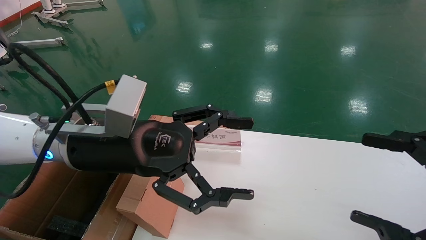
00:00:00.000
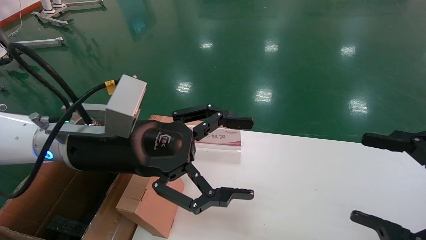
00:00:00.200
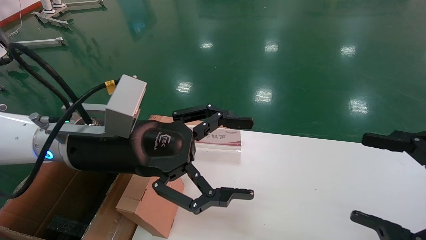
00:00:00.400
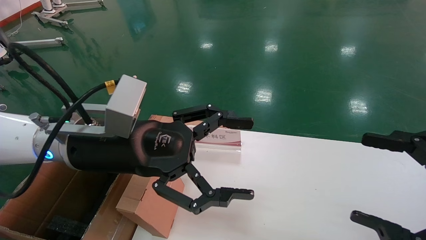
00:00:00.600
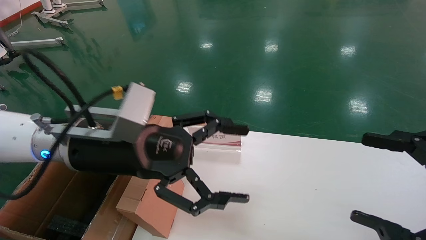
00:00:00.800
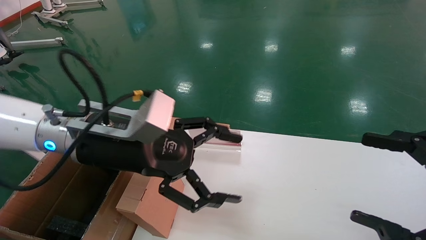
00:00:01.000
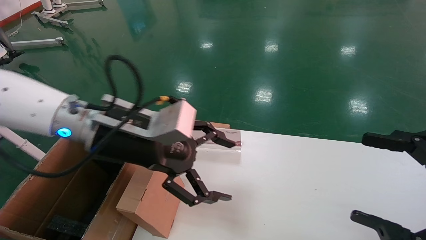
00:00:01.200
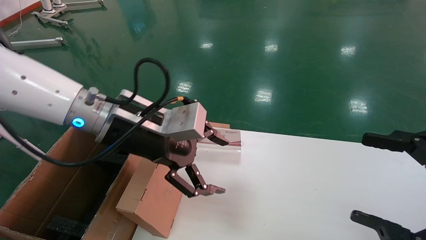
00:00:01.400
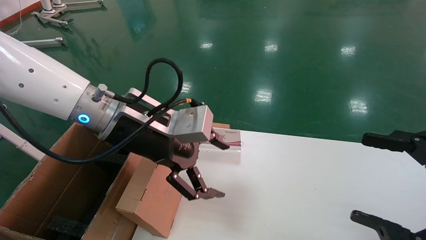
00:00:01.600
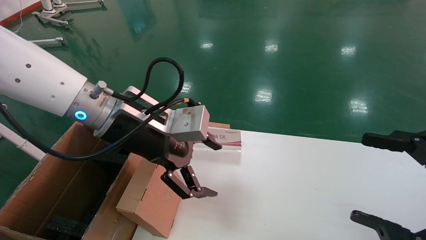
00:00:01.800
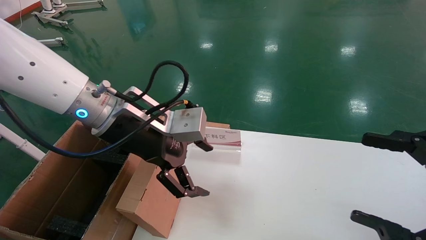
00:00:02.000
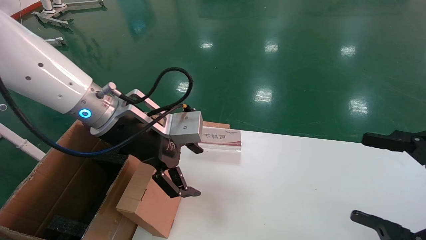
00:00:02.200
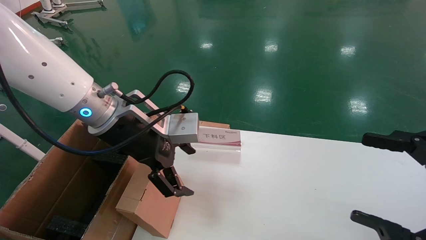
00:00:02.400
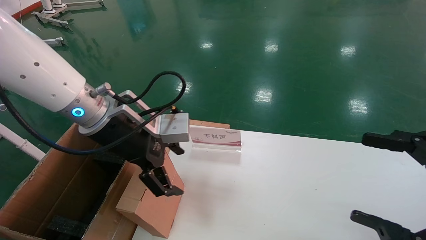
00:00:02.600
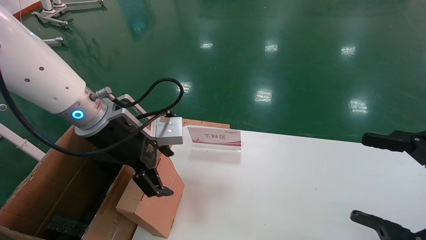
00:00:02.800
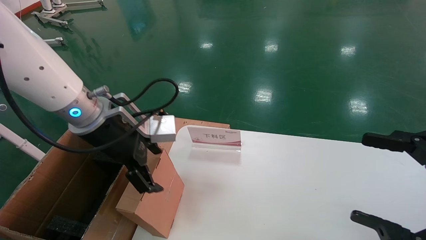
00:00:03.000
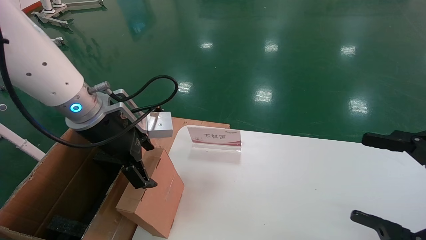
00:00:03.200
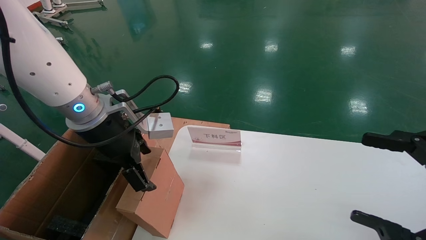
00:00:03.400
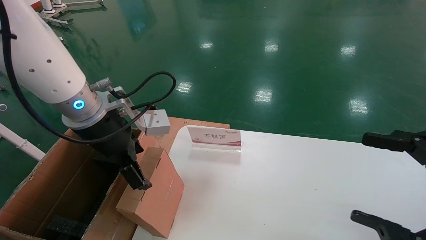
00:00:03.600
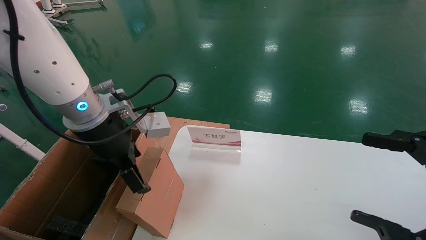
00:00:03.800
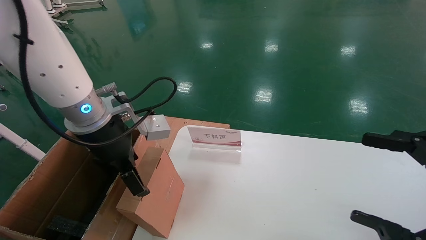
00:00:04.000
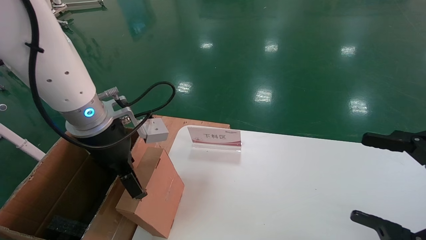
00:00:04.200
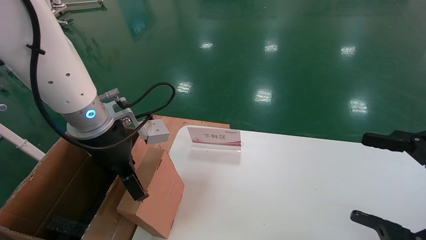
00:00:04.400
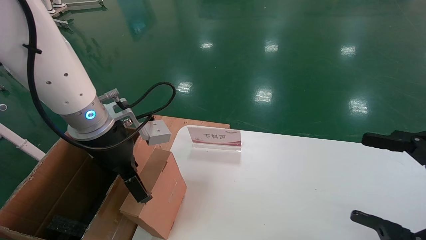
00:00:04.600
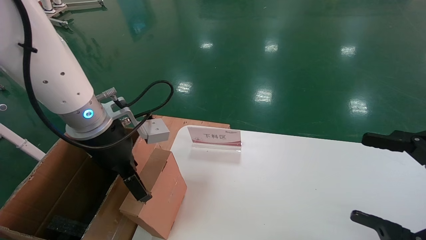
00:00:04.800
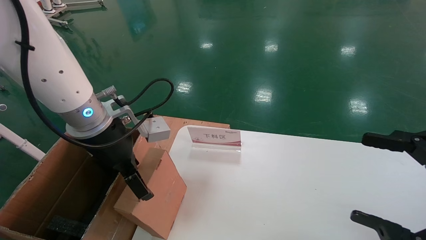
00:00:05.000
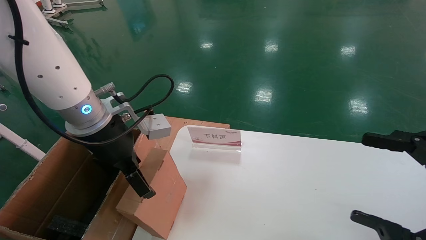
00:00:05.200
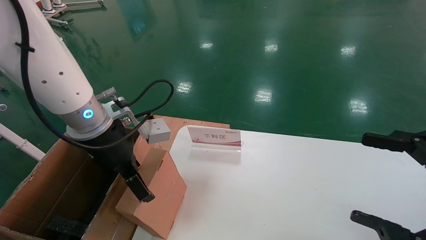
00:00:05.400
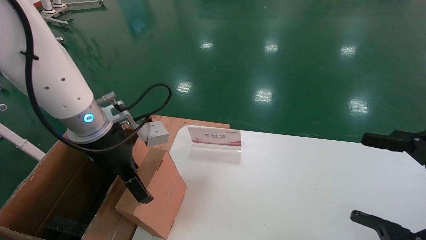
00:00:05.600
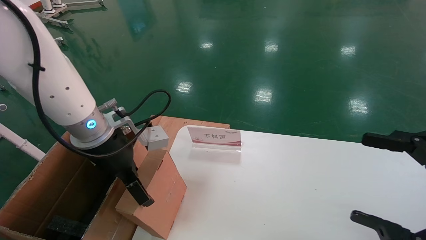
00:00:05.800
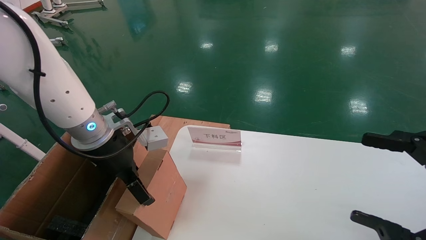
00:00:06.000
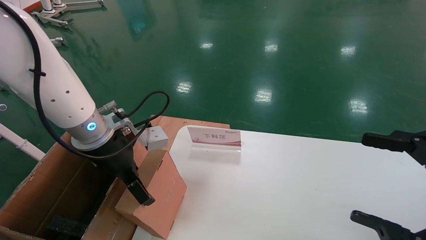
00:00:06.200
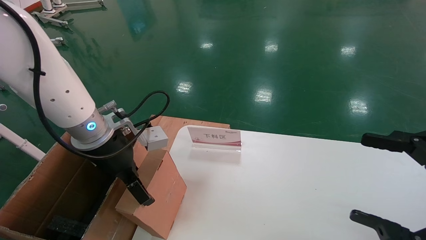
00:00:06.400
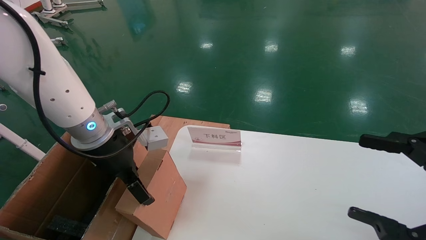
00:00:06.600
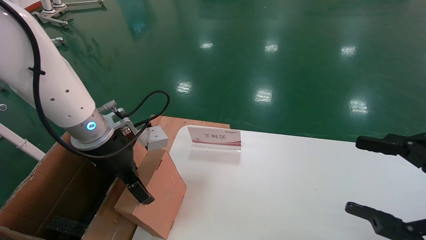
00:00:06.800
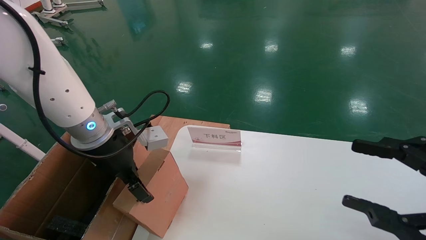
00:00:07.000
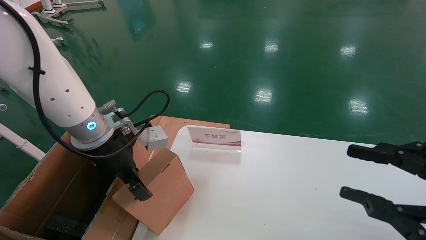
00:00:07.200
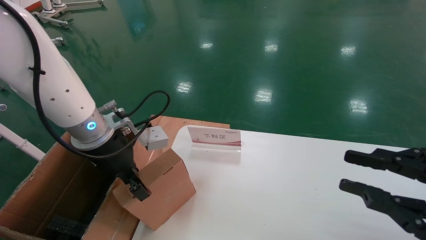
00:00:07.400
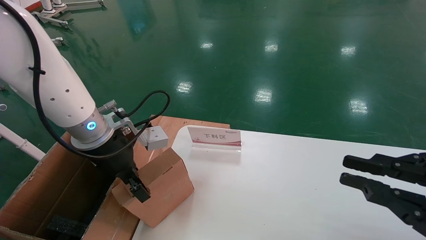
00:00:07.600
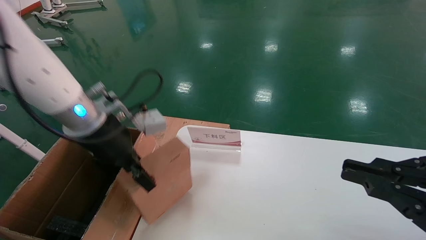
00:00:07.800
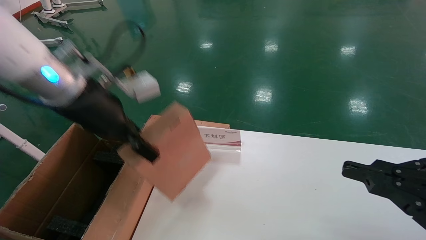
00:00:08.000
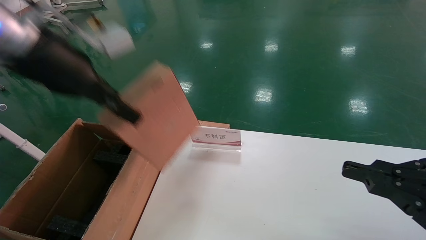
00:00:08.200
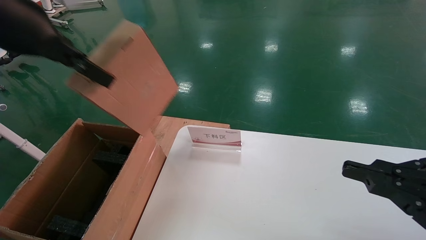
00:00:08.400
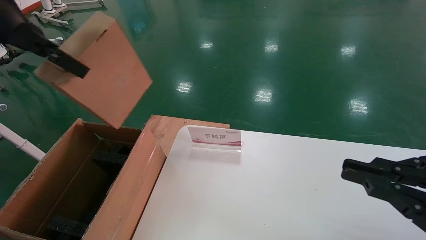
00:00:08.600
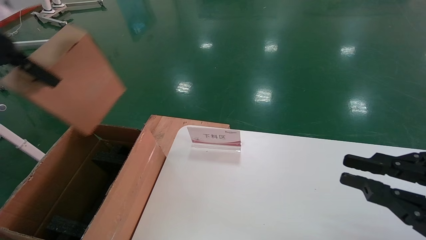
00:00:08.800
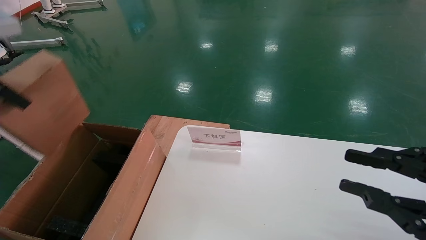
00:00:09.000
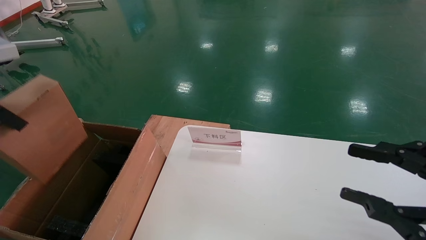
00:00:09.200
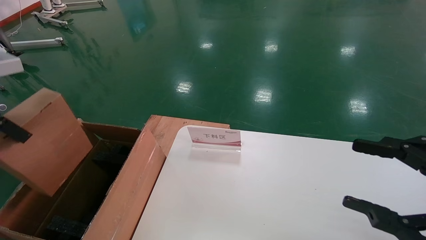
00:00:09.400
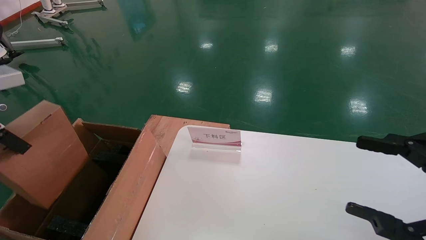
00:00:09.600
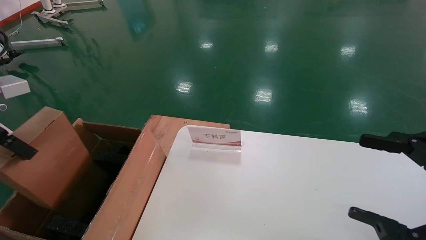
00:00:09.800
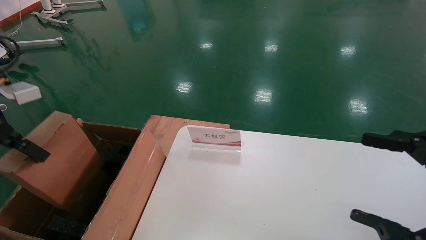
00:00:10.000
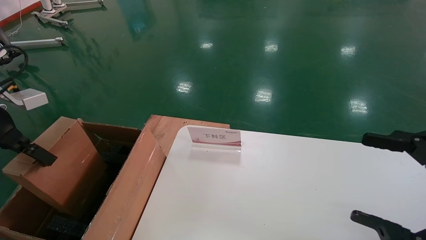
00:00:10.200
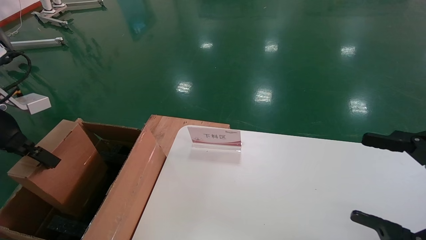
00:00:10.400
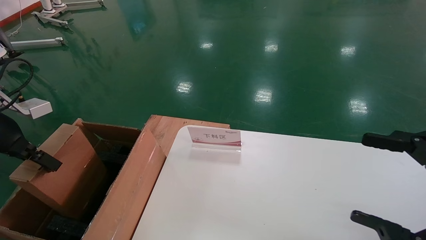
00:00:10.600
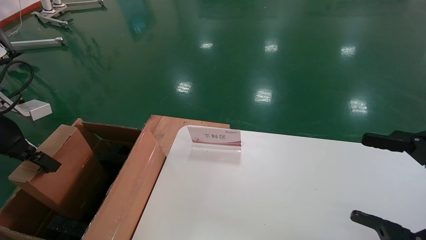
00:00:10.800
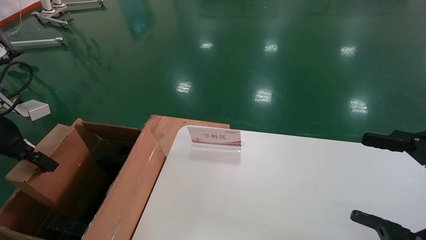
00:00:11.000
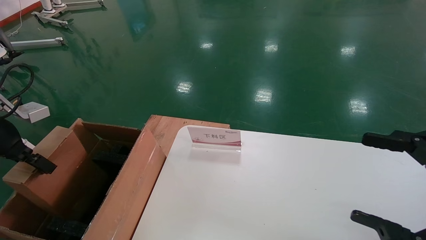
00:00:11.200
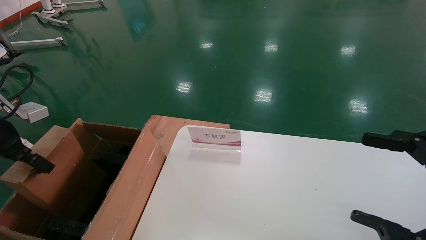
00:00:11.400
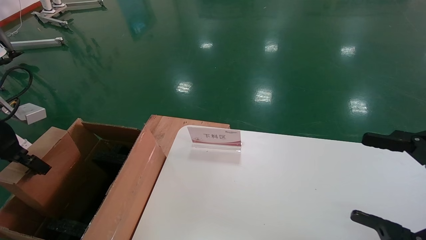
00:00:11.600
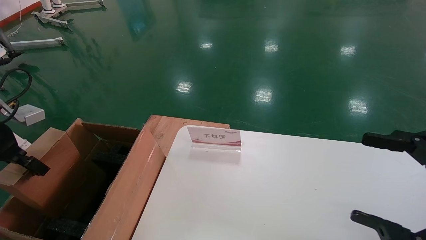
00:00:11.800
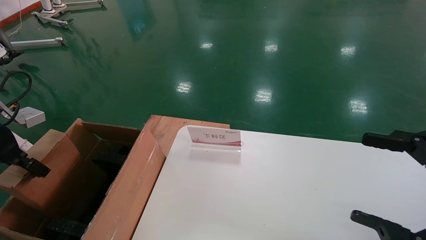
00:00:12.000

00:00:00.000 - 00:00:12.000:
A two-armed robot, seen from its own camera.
Task of the whole recording: pick up the small cardboard box and load it into the large cardboard box.
Step, 00:00:00.800 - 00:00:07.600: Pick up the mouse and power cord box.
00:00:00.000 - 00:00:01.600: The left gripper ends up roughly 5 cm from where it was.
00:00:04.400 - 00:00:06.000: The grippers stay close to where they were, moving slightly.
00:00:06.000 - 00:00:07.600: The right gripper closes up, while the left gripper closes up.
00:00:07.600 - 00:00:09.000: The left gripper heads upward, to the left and backward, covering some 25 cm.
00:00:09.000 - 00:00:10.400: The right gripper opens its fingers. The left gripper heads downward and to the left, covering about 15 cm.
00:00:10.400 - 00:00:12.000: The grippers stay close to where they were, moving slightly.

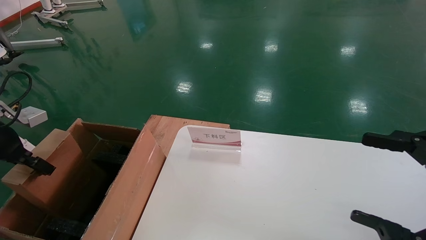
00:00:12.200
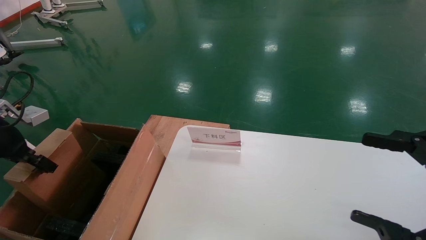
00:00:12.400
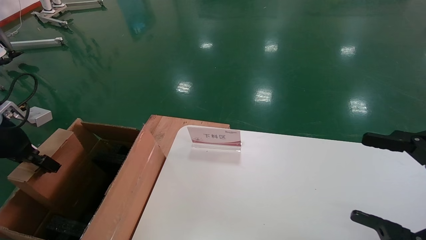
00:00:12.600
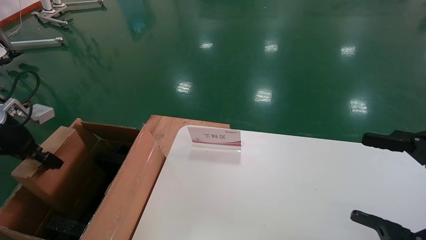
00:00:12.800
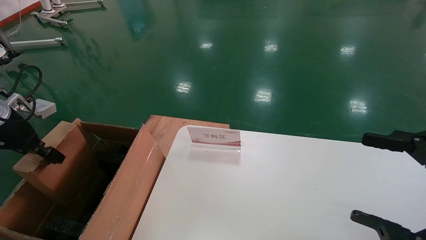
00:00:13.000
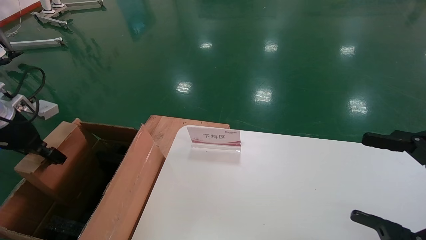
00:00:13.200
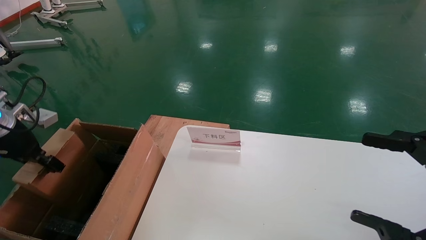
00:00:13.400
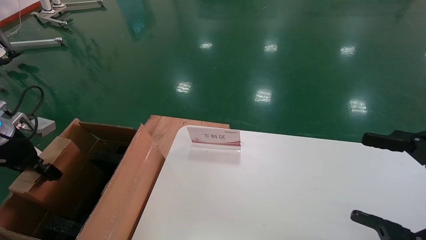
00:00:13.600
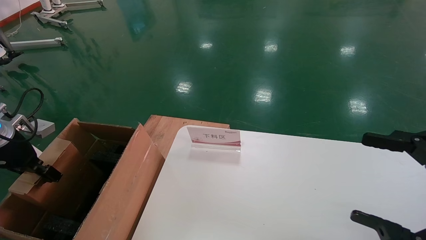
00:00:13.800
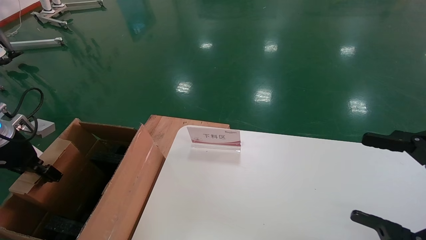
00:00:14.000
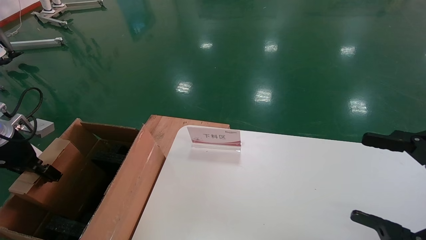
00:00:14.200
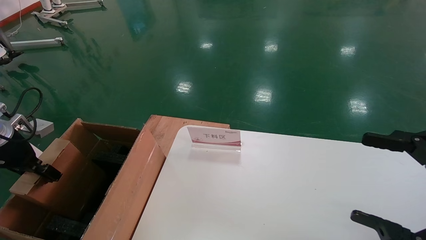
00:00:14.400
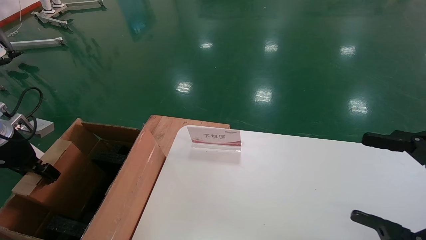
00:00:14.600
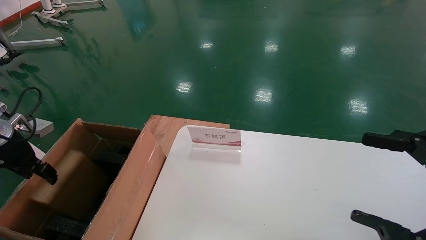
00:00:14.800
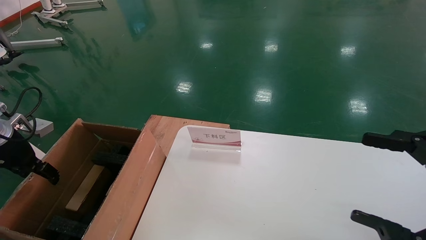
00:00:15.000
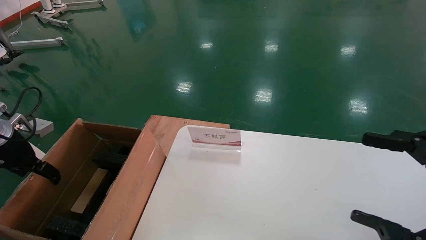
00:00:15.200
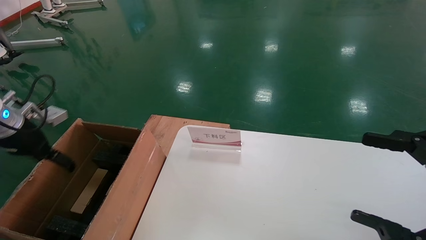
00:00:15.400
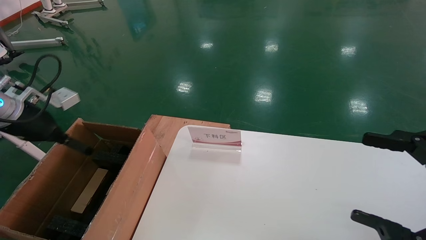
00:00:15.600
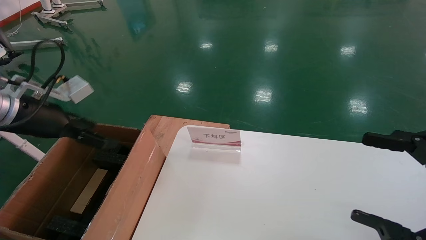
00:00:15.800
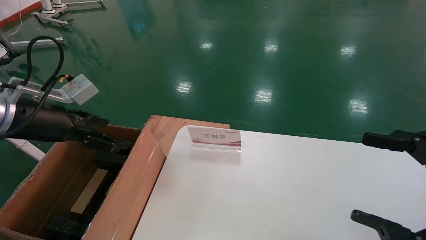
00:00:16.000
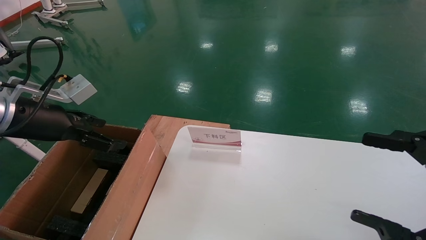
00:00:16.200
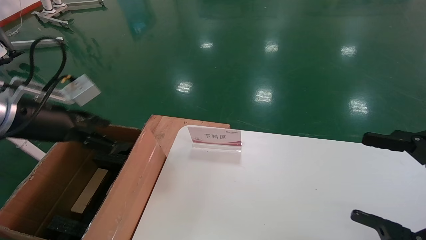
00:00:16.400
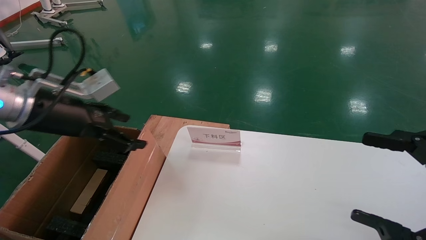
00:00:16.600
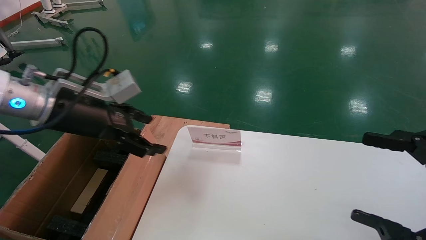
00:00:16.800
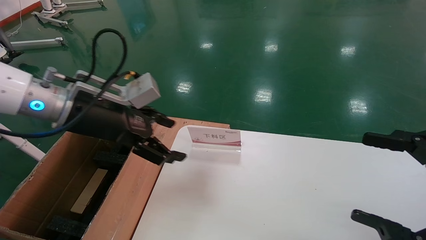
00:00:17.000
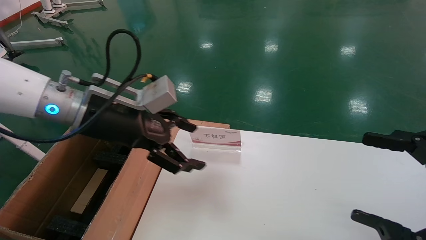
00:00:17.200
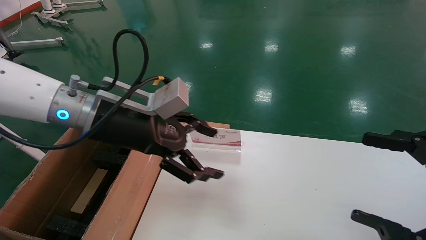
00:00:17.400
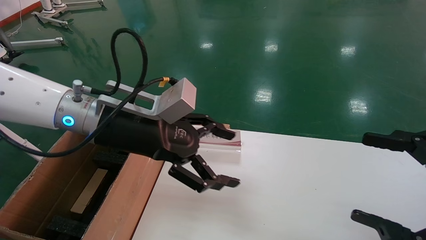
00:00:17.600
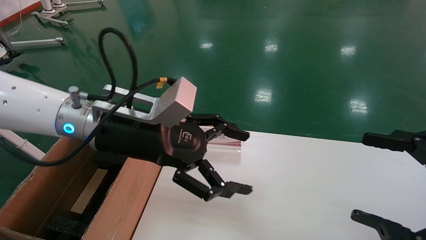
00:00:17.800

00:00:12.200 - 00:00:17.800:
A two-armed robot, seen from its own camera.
Task of the whole recording: pick up the small cardboard box and load it into the large cardboard box.
Step, 00:00:12.200 - 00:00:14.800: Place the mouse and power cord box into the case.
00:00:12.200 - 00:00:13.600: The grippers stay close to where they were, moving slightly.
00:00:13.600 - 00:00:15.000: The left gripper opens up.
00:00:15.000 - 00:00:16.400: The left gripper is displaced to the right and upward by some 15 cm, and opens.
00:00:16.400 - 00:00:17.800: The left gripper travels to the right by some 15 cm.
